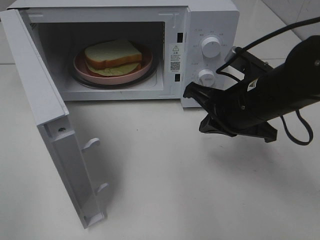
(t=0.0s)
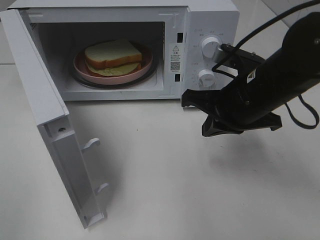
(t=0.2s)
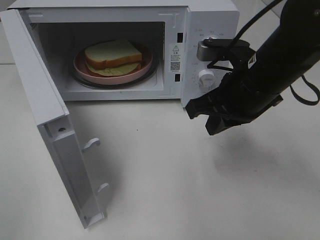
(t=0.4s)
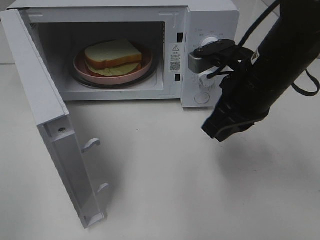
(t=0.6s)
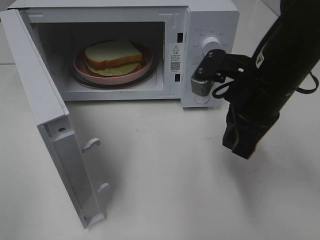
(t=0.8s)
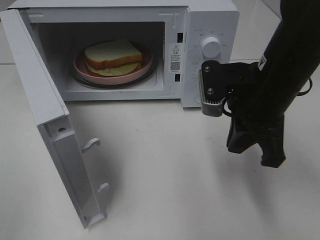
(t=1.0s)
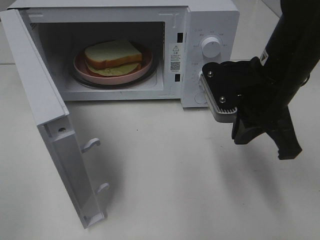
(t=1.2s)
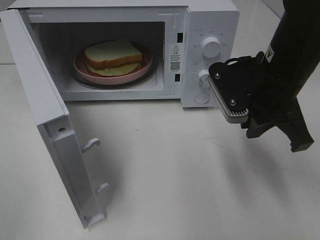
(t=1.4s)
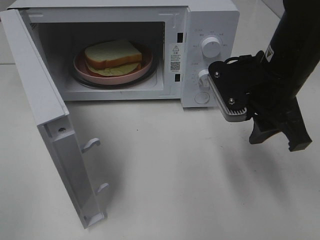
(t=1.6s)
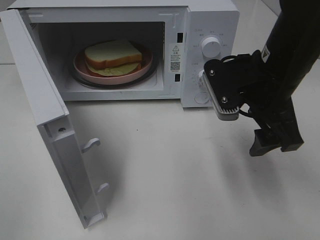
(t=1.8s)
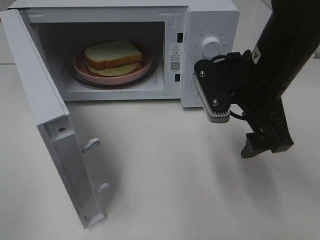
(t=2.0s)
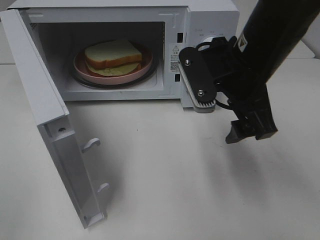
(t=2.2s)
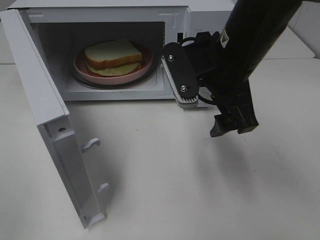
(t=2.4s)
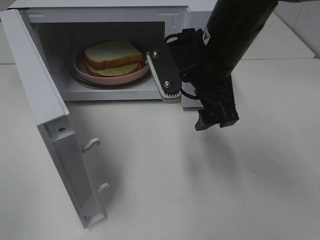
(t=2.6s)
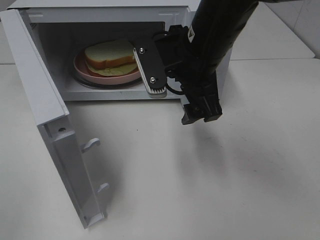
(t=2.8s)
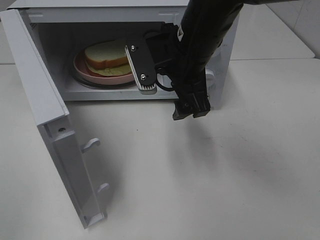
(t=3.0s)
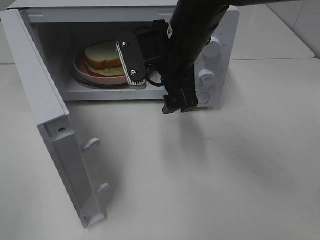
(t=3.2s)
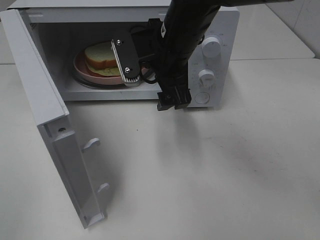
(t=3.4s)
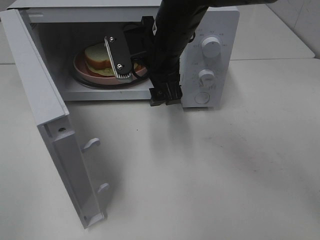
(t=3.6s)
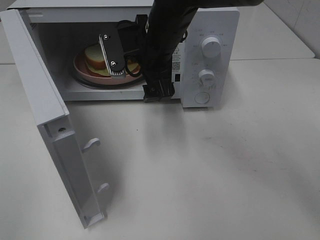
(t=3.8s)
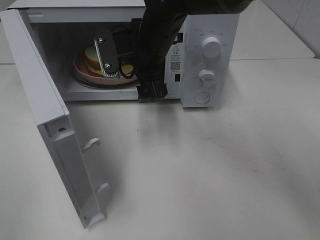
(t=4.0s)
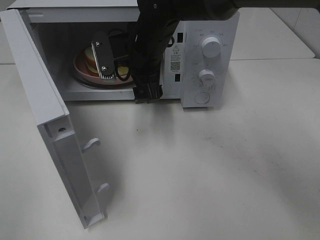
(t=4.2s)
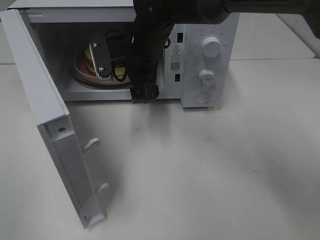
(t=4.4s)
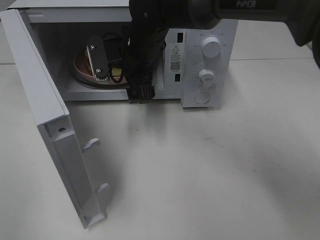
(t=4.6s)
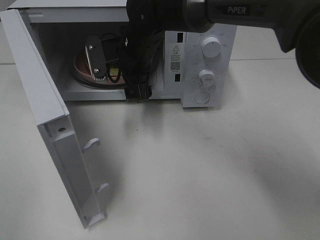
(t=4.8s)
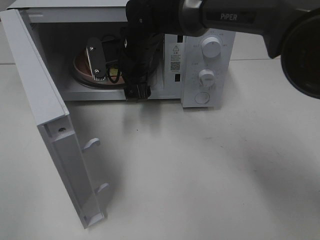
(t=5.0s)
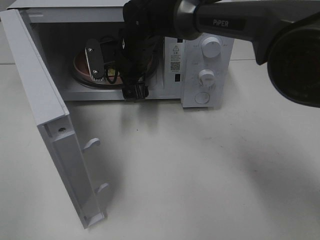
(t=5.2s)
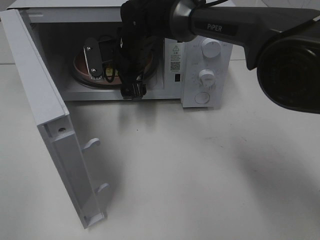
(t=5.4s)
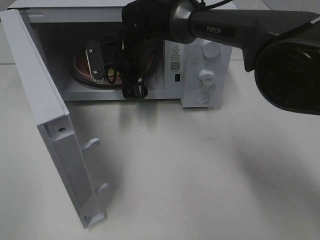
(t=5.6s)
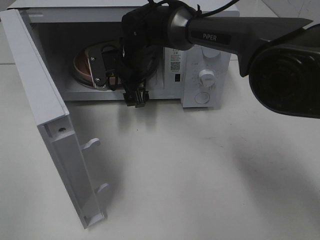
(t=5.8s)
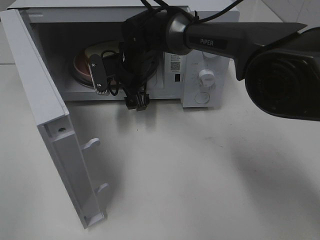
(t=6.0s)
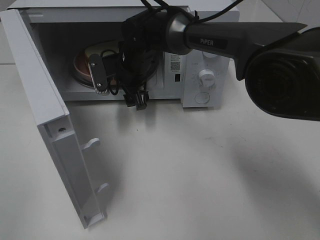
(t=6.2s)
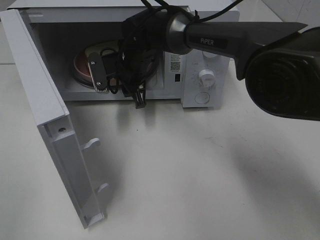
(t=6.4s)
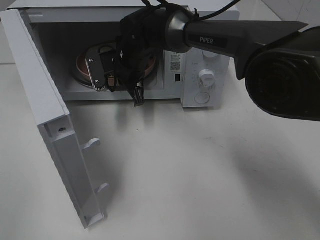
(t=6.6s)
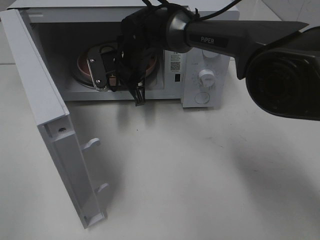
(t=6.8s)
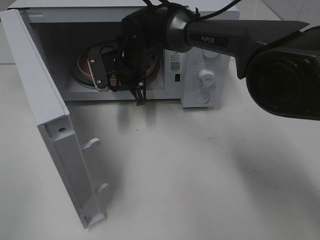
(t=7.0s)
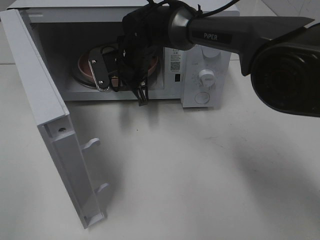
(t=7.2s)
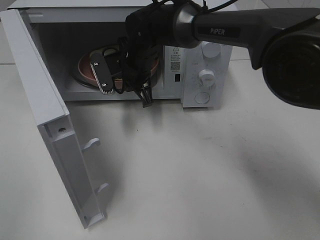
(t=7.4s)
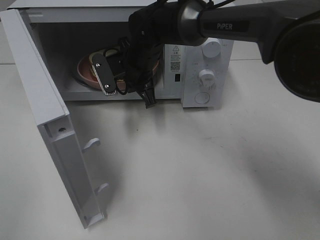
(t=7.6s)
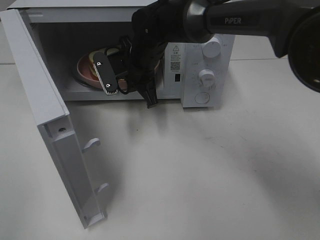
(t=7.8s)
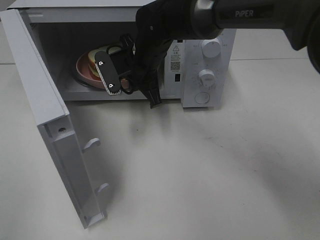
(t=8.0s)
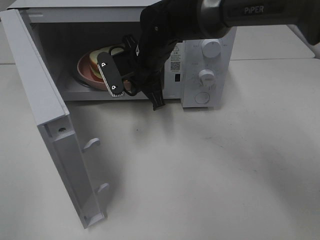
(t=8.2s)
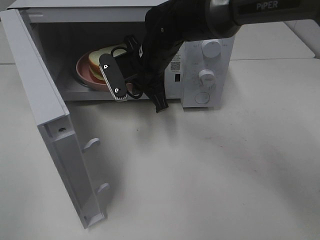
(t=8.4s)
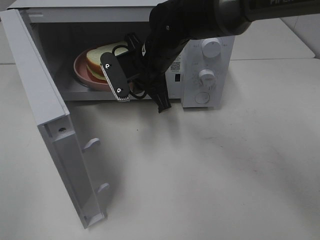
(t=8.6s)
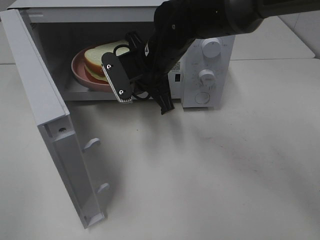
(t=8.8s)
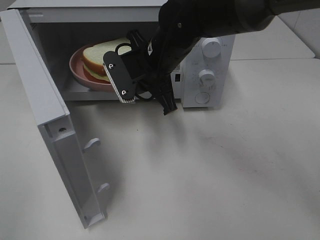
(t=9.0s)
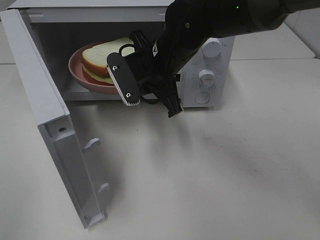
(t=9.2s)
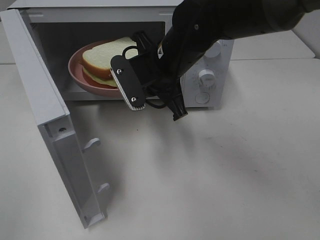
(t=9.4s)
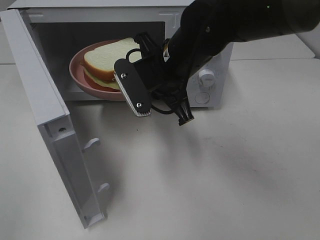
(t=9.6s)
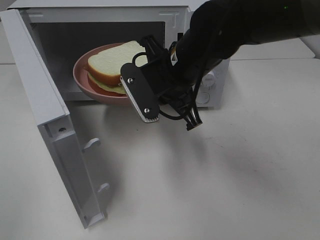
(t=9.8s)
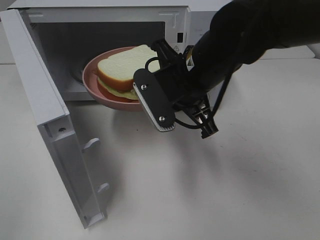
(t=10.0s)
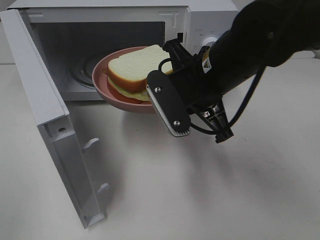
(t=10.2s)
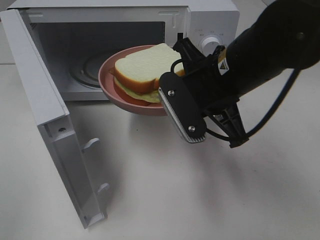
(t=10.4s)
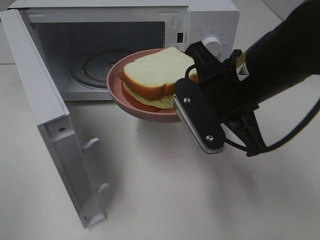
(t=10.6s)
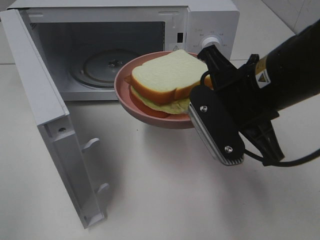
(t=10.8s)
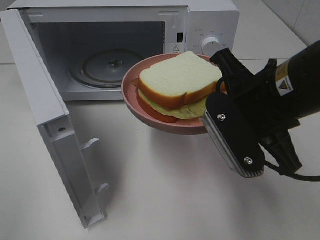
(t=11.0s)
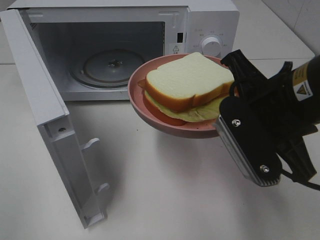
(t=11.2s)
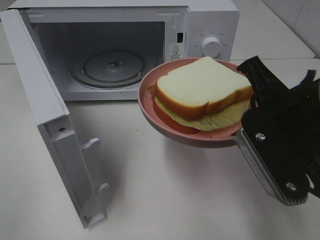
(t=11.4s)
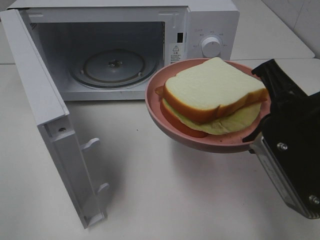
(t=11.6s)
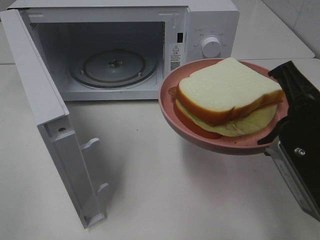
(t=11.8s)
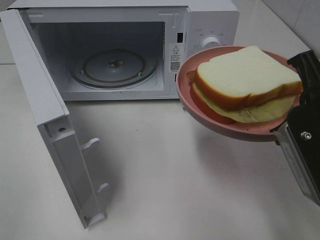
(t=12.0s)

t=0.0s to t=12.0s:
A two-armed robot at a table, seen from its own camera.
Task of the whole recording: Heat Sandwich.
Step, t=0.0s to t=7.2s: Right hand: grab the plate with the sandwich.
t=0.0s to t=1.6s: The right gripper ends up some 5 cm from where it was, and opens its fingers.
t=1.6s to t=3.0s: The right gripper moves to the left, about 10 cm, and opens up.
t=3.0s to t=4.4s: The right gripper is displaced forward and to the left by some 10 cm.
t=4.4s to t=6.0s: The right gripper goes about 5 cm downward.
t=6.0s to t=7.6s: The right gripper closes its fingers.
t=7.6s to t=9.0s: The right gripper is displaced backward by some 5 cm.
t=9.0s to t=10.4s: The right gripper travels backward and to the right by approximately 15 cm.
t=10.4s to t=12.0s: The right gripper moves to the right and backward, approximately 15 cm.

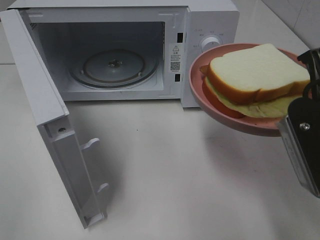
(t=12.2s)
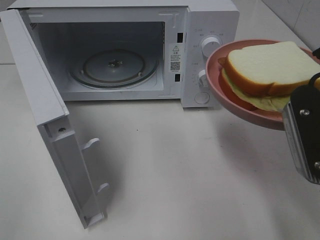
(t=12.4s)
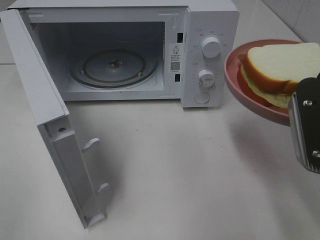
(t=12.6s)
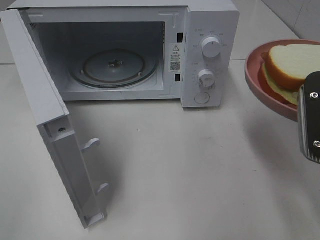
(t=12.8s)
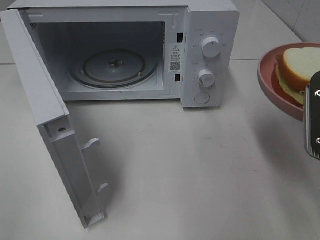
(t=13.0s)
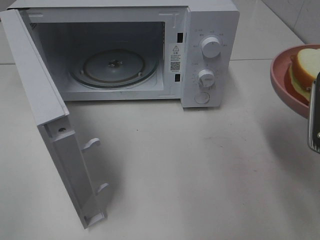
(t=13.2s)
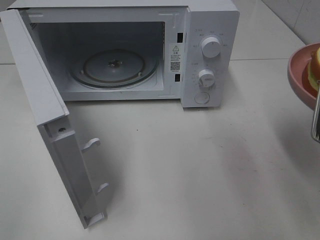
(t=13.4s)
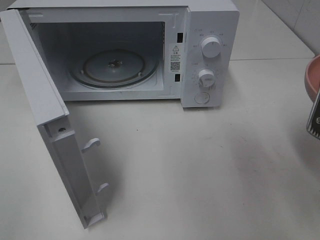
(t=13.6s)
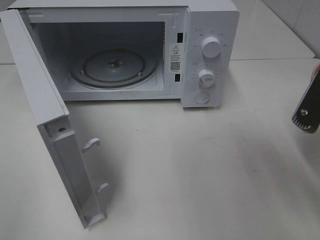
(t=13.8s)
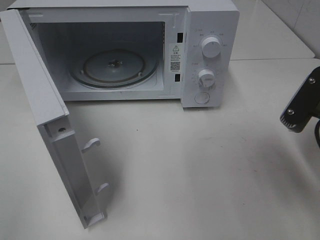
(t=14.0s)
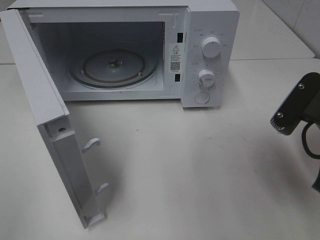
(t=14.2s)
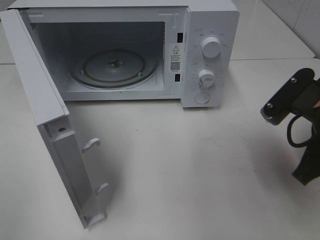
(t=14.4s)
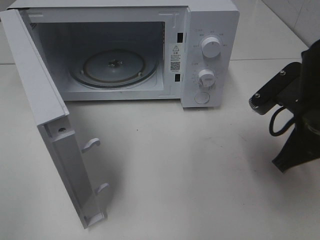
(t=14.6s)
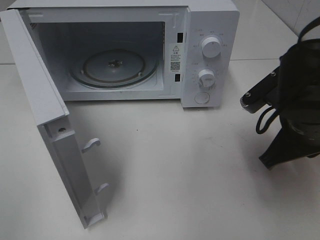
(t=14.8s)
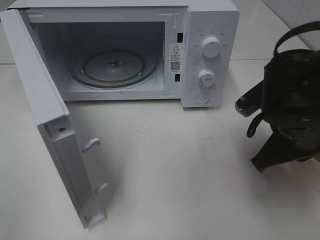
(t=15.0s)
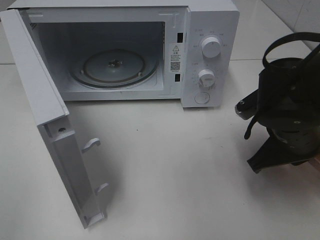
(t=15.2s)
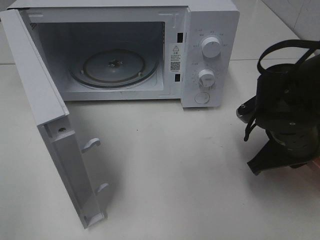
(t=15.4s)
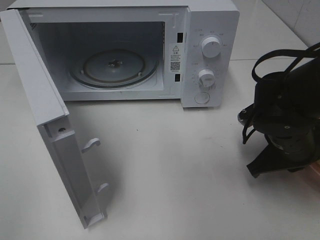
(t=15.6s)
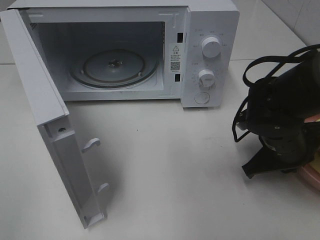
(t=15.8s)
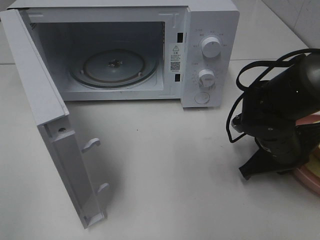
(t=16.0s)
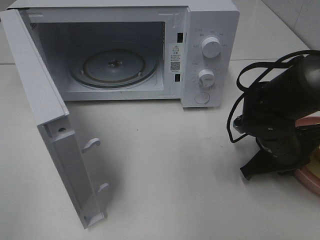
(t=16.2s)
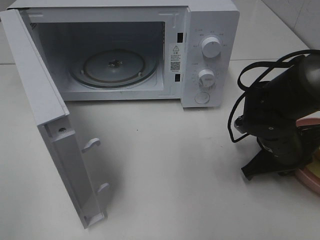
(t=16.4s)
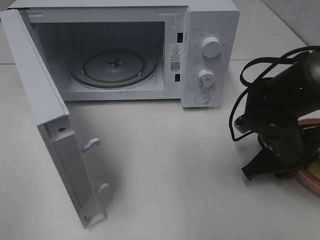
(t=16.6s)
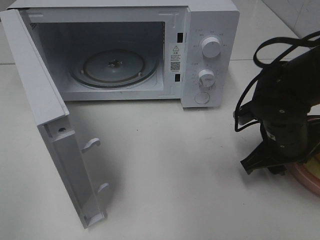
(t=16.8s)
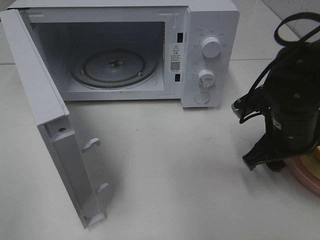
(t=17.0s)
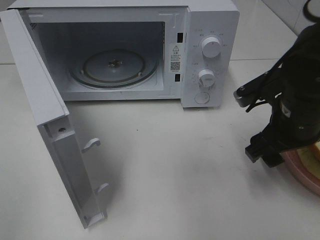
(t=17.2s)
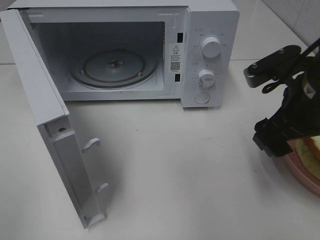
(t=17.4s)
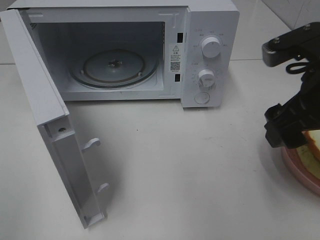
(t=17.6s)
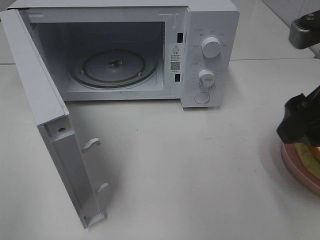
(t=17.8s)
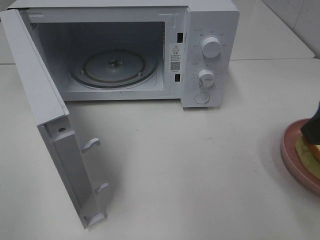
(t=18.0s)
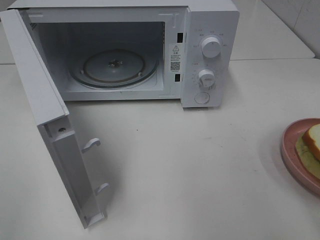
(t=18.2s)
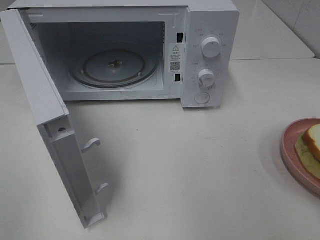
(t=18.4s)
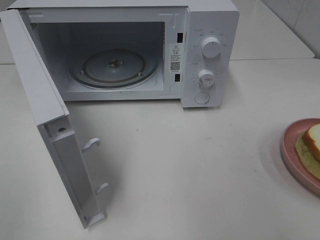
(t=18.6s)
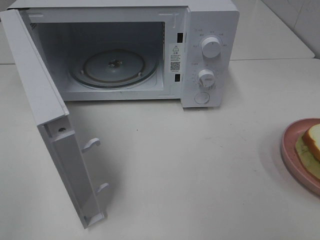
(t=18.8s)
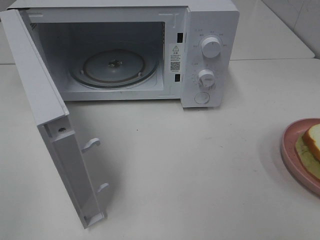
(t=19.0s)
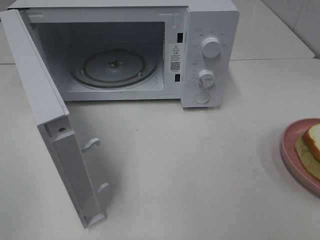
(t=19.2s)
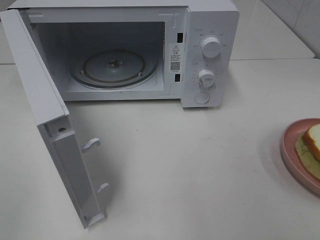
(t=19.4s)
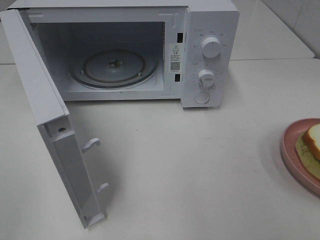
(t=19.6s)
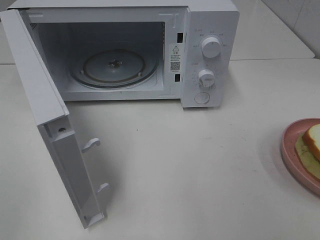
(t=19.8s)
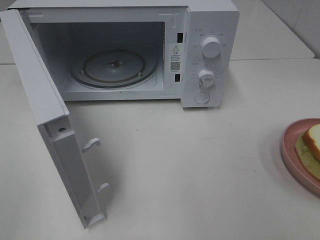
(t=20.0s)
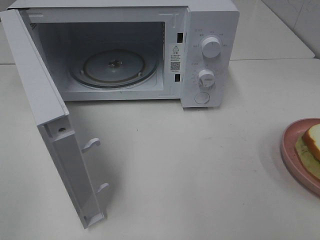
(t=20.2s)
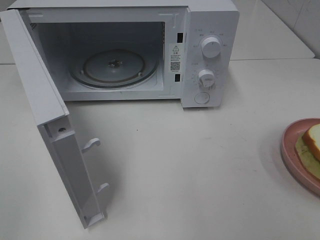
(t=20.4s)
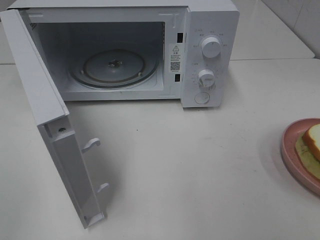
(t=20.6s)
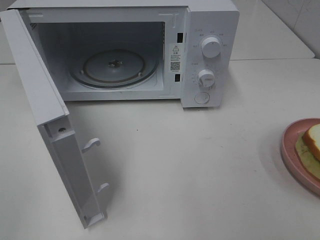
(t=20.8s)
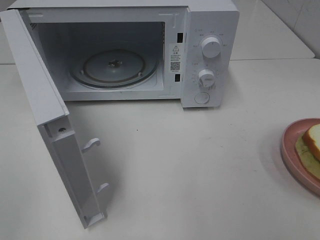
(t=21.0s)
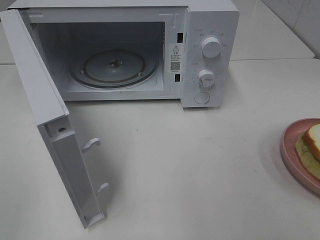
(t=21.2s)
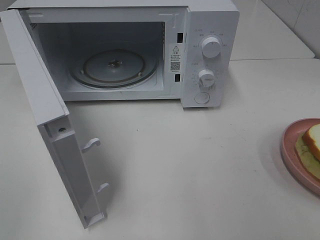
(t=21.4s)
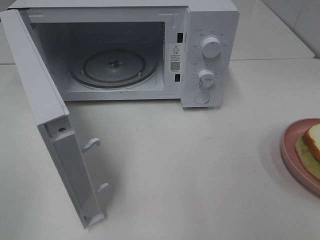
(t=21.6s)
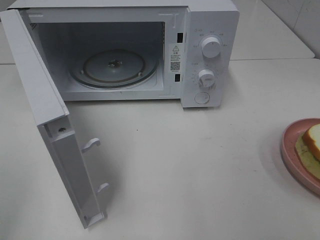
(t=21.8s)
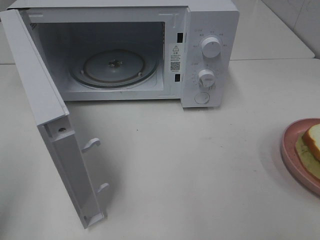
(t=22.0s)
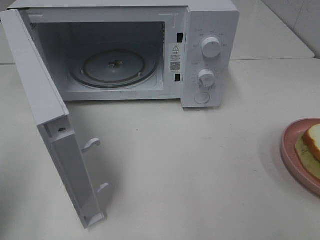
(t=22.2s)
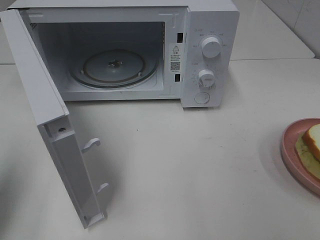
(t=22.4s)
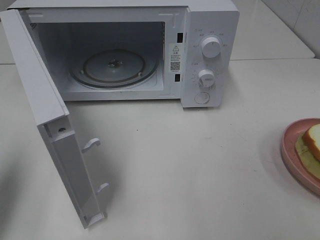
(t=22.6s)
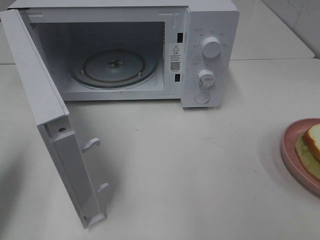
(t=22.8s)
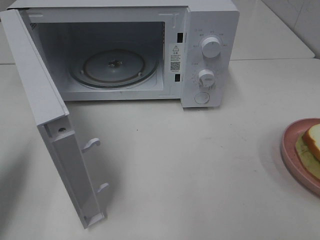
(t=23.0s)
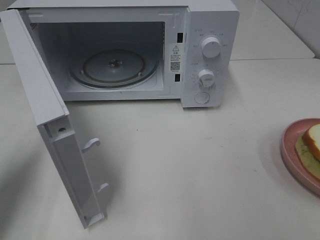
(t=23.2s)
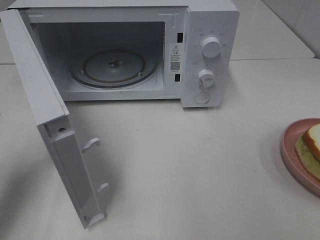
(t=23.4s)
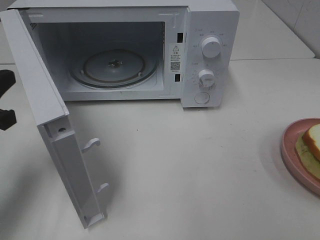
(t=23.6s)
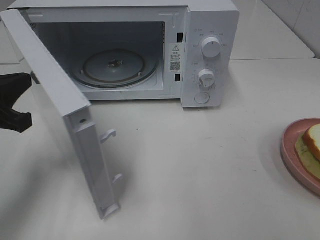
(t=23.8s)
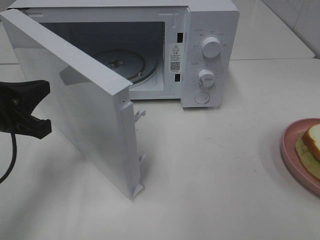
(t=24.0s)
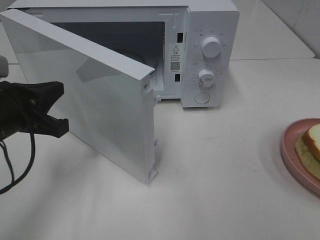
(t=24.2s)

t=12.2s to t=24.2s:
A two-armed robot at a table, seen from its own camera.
Task of the whole recording: Heat Sandwich.
Step, t=12.2s to t=17.8s: Right hand: place the plate on the table.
t=13.8s to t=15.2s: The right gripper goes approximately 10 cm downward and forward.
t=15.2s to t=16.6s: The right gripper heads downward, covering some 5 cm.
t=16.6s to t=18.2s: The right gripper goes some 25 cm upward and backward, and opens its fingers.
t=19.8s to t=21.2s: Neither gripper changes place.
t=21.2s to t=22.6s: The left gripper is displaced forward by approximately 15 cm, and closes.
t=22.6s to t=24.2s: The left gripper goes about 15 cm to the right, downward and forward.
